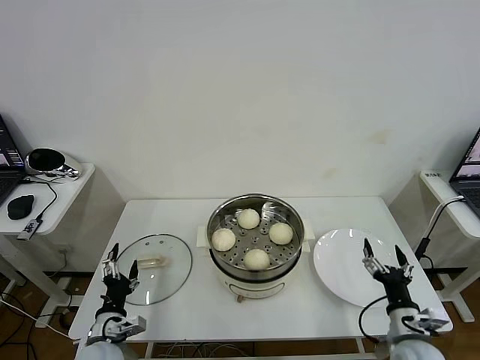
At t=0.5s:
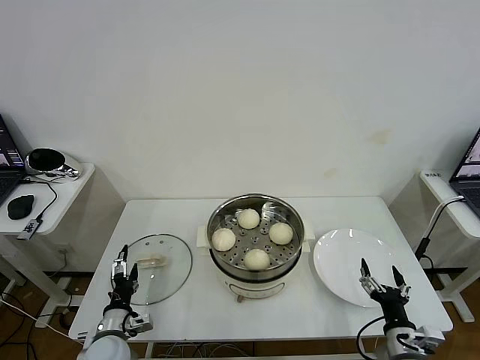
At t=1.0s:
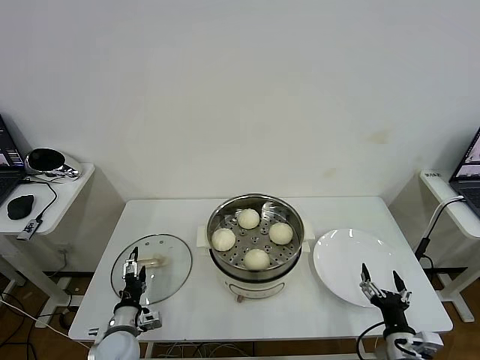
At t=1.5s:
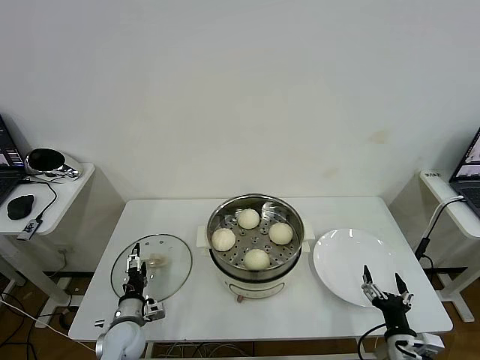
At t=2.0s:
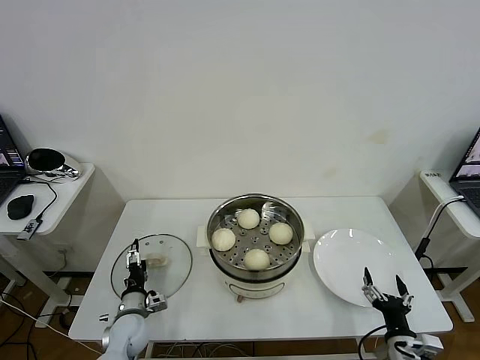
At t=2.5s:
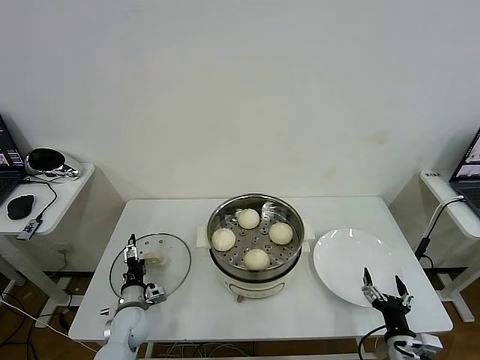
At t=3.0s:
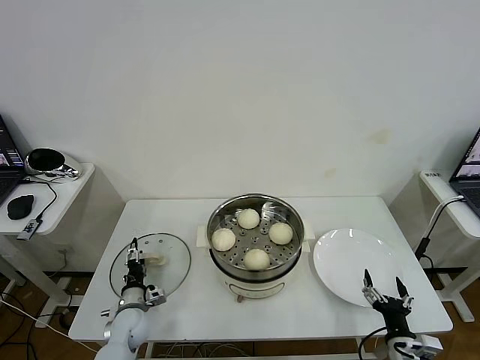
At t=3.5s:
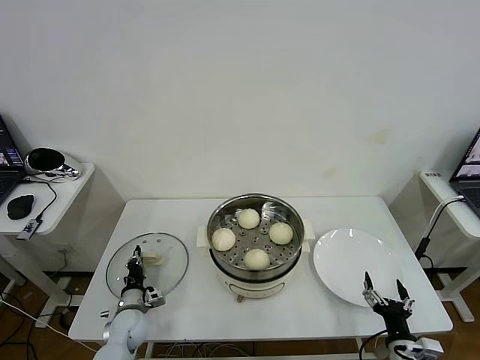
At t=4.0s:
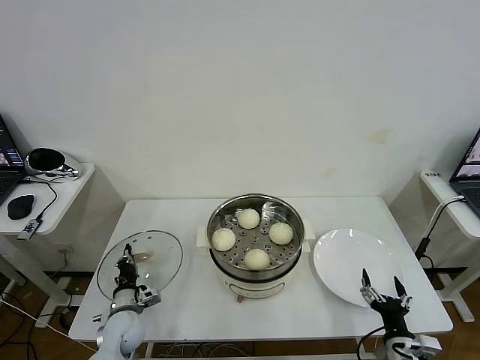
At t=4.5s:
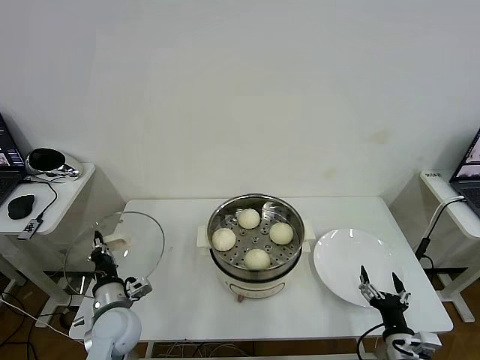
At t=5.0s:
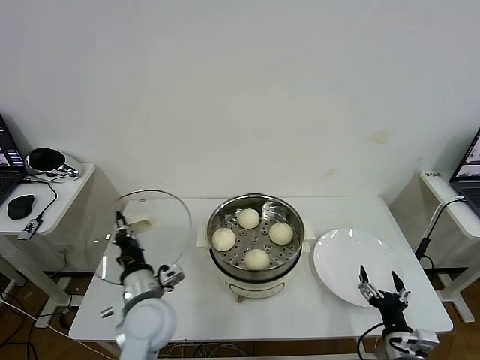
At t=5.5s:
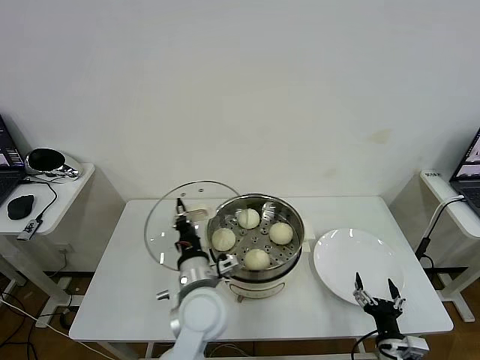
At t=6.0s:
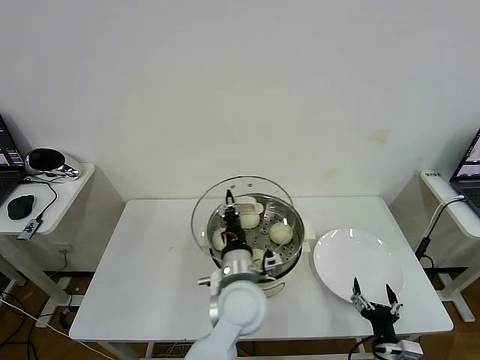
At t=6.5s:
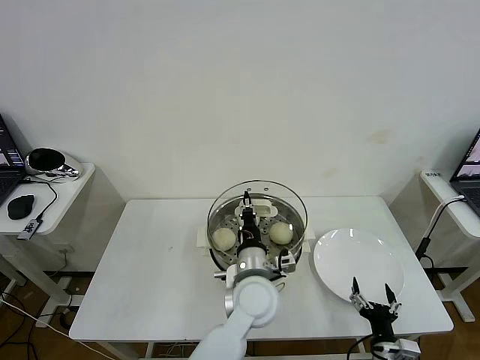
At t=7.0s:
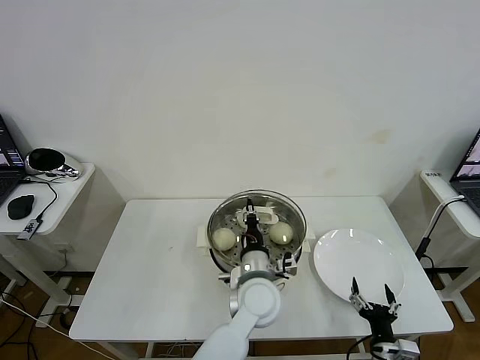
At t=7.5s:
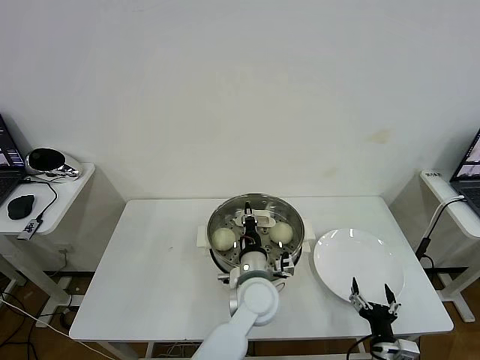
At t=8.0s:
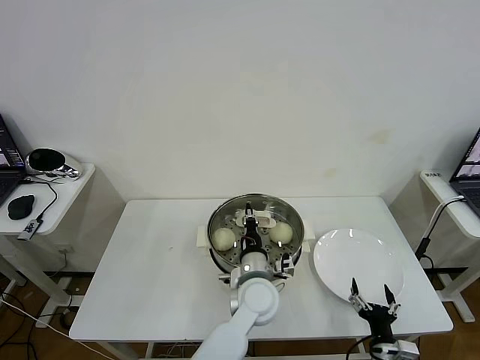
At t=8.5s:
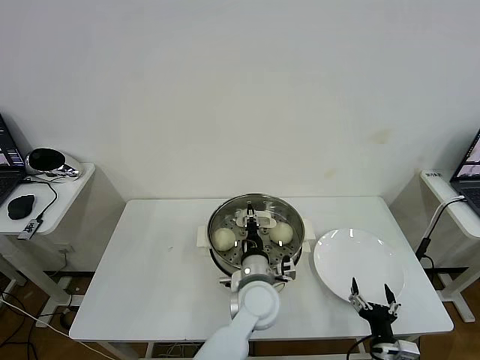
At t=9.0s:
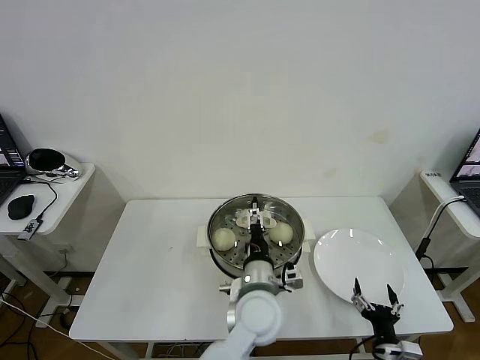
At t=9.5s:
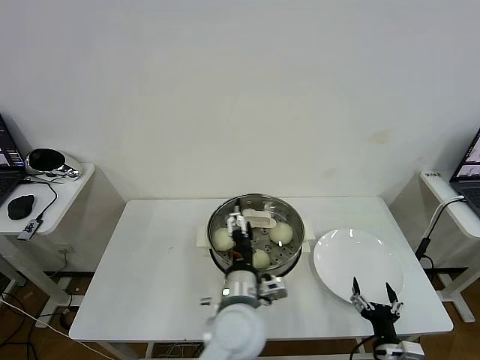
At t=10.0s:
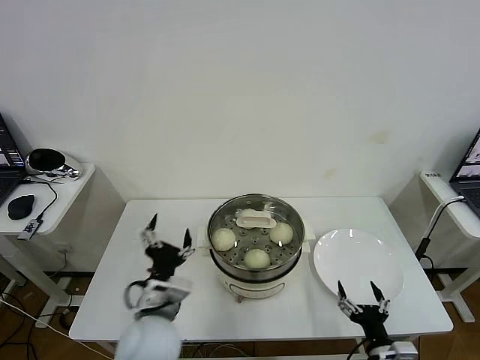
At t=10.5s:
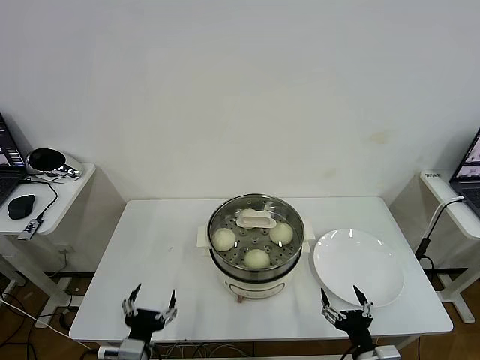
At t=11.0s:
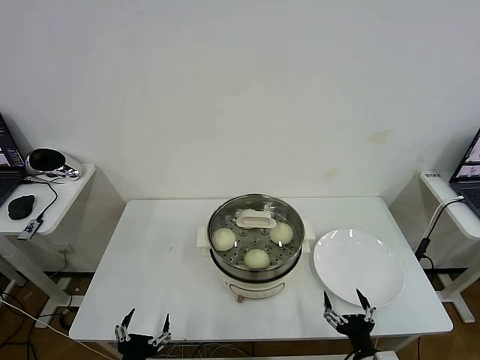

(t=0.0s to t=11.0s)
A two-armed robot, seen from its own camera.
Task of the whole recording: take steamed baozi put them in steamer then cover it.
Step, t=0.0s - t=3.5s: Grasp the pot lid with left gripper.
Step, t=4.0s - t=8.5s: Place the pot lid on the steamer with left gripper.
t=0.0s - t=2.0s: The right gripper changes place by roughly 5 cm. Meanwhile the left gripper travels forward and downward by about 10 cm.
t=2.0s - t=3.5s: The left gripper closes.
t=3.5s - t=5.5s: The left gripper heads upward and to the right, covering some 30 cm.
t=5.5s - t=7.5s: The left gripper goes roughly 10 cm to the right.
t=7.5s - t=9.0s: The left gripper opens up.
t=9.0s - t=11.0s: The left gripper is displaced to the left and backward by about 35 cm. The right gripper moves about 5 cm.
